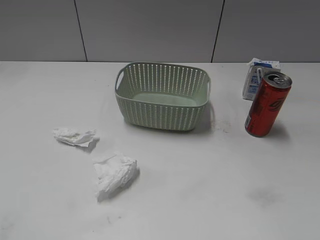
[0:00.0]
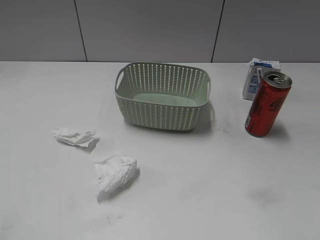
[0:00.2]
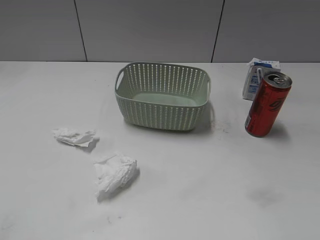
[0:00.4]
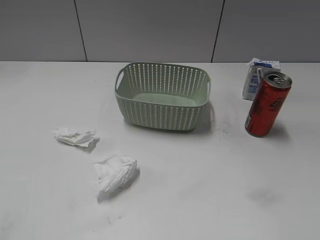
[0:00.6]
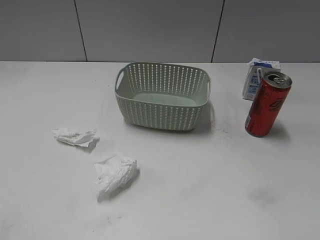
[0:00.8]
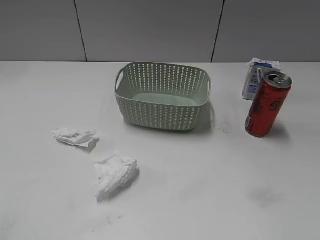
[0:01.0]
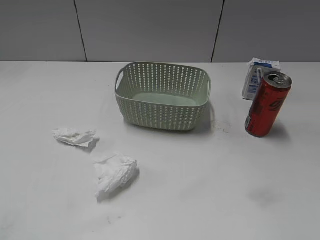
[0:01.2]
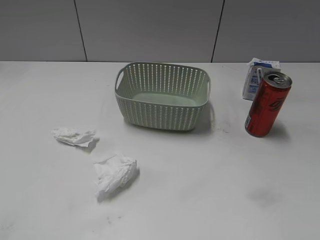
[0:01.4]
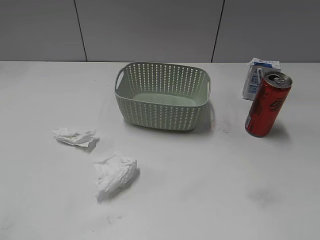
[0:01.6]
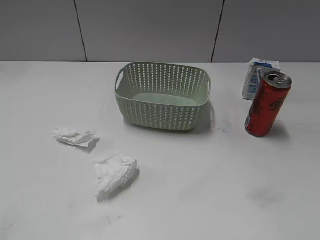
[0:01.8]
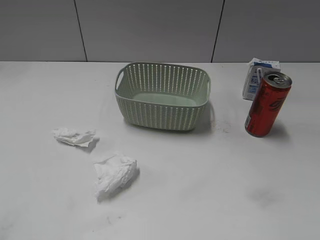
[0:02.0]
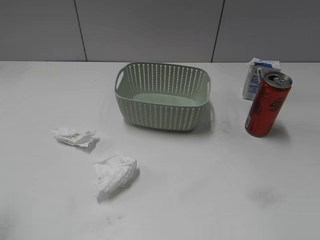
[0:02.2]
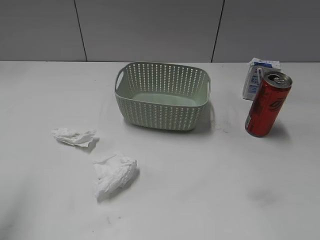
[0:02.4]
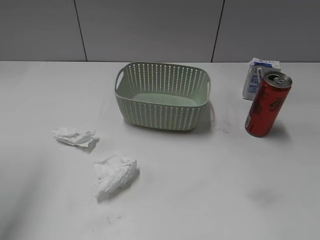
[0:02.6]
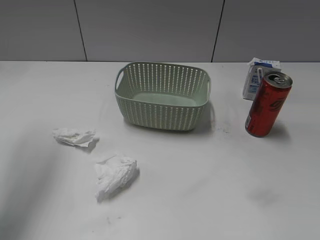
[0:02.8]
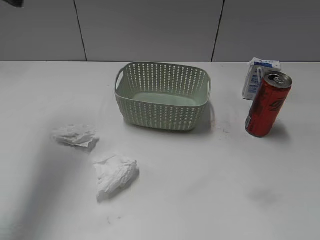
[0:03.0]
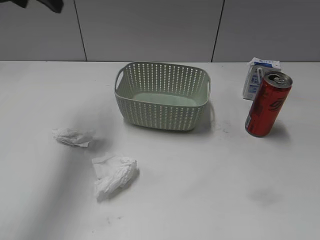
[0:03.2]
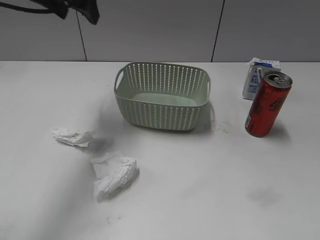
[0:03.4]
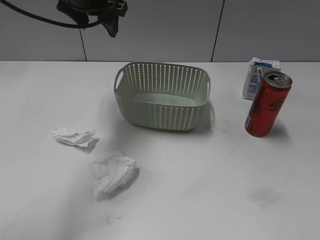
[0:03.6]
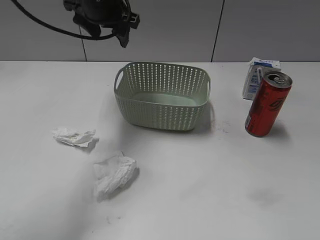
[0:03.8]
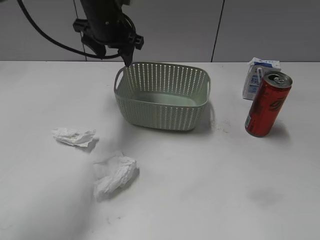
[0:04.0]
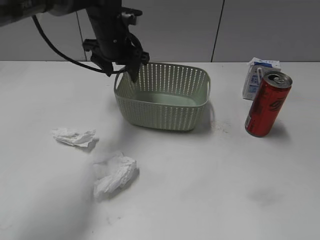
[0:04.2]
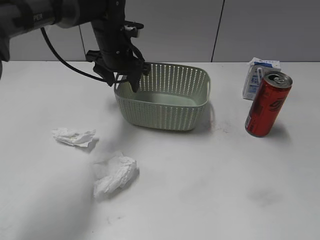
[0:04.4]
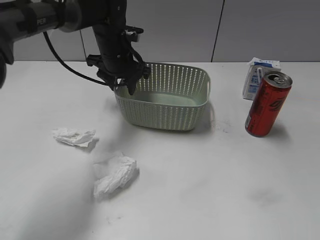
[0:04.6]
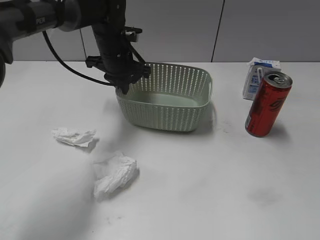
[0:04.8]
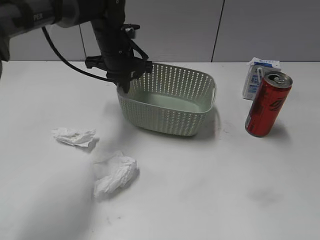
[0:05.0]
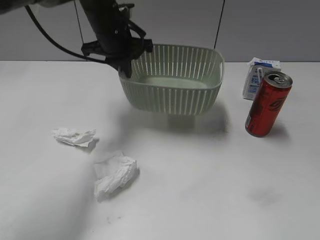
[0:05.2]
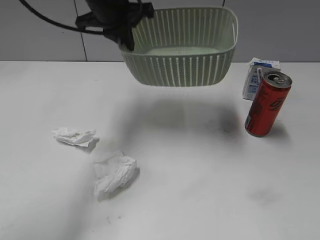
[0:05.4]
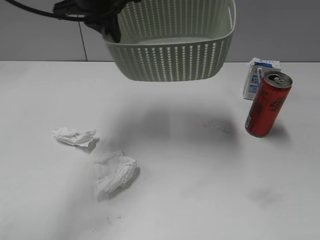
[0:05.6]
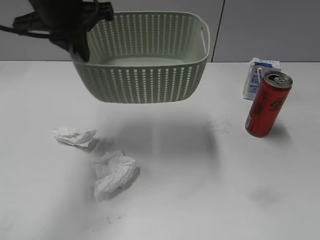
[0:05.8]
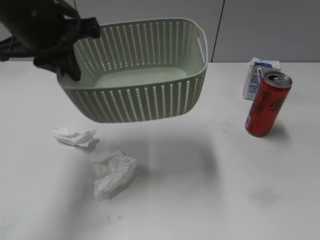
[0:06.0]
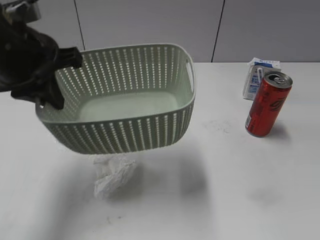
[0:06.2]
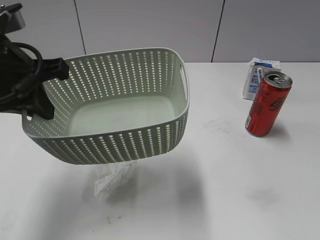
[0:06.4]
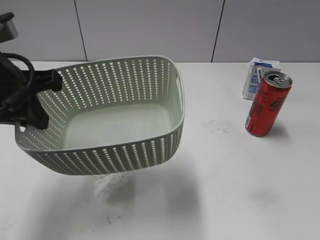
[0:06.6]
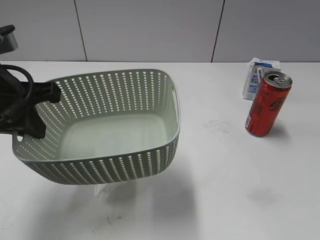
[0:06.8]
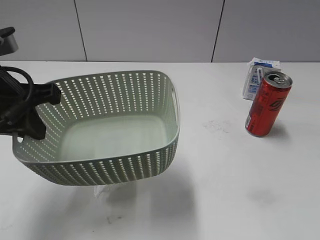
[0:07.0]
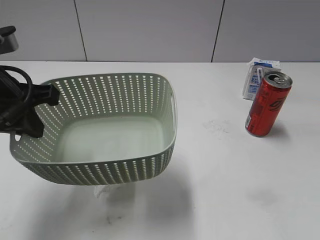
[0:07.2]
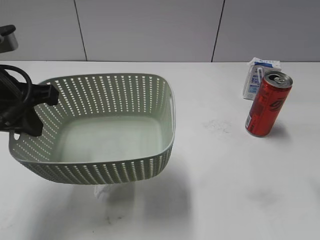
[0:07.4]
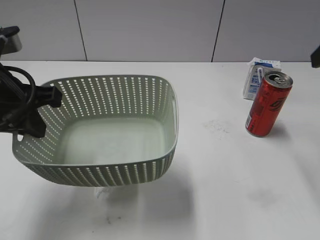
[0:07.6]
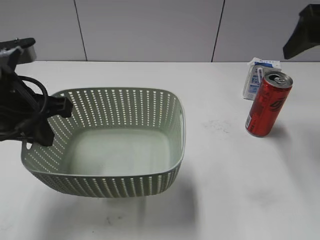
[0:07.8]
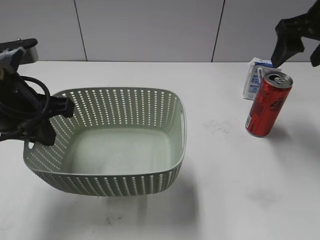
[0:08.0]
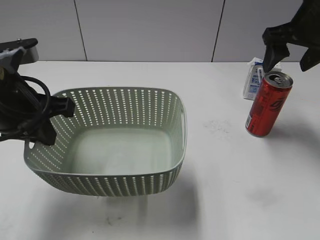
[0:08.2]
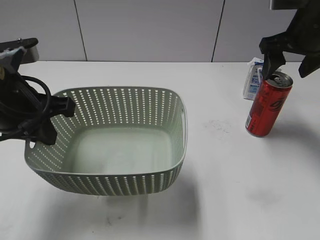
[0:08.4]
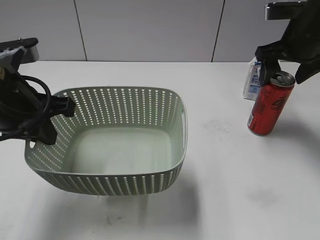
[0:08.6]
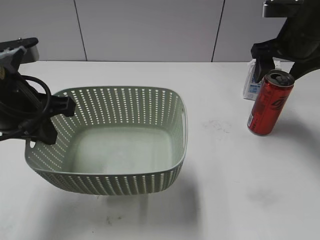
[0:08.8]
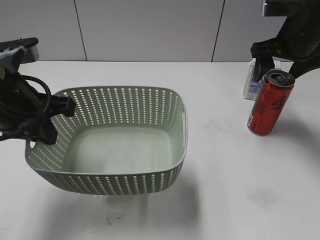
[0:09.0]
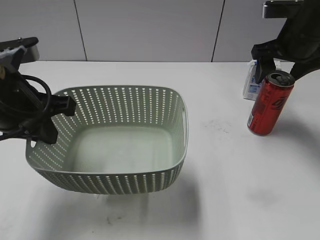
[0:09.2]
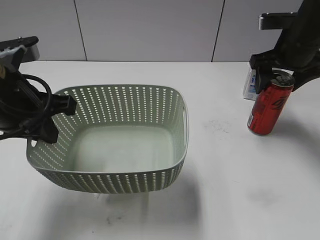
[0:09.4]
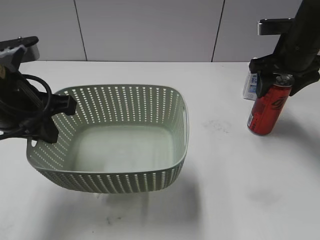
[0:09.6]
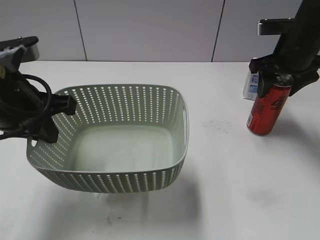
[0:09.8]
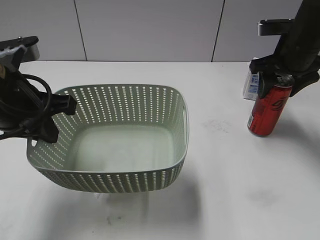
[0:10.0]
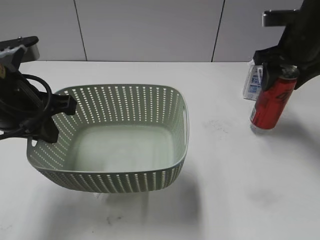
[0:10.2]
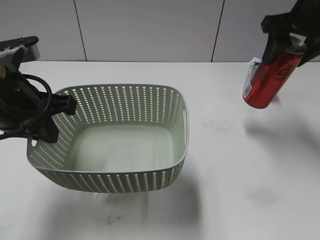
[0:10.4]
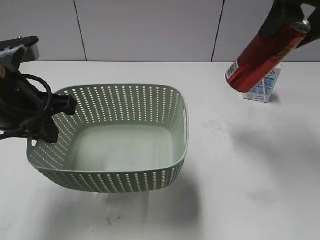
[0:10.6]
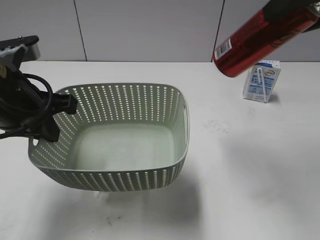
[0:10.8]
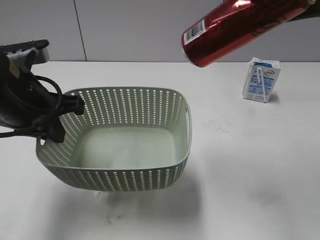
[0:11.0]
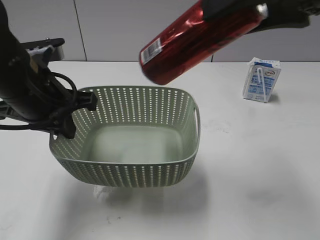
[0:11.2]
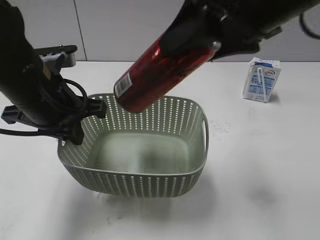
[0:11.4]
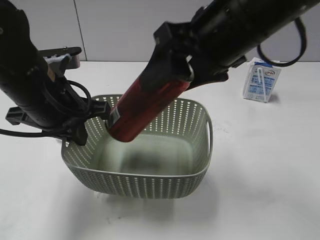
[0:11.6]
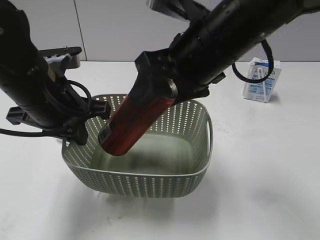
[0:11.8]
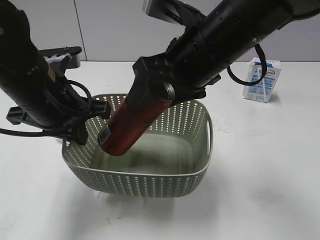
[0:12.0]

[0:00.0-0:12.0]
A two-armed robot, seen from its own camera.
Step, 0:03.0 to 0:04.8: Grasp the basket with left gripper.
Step, 0:05.0 to 0:07.4: Lift the basket with left gripper.
Step, 0:07.6 to 0:10.0: Grasp the cola can with right gripper.
0:01.6 to 0:03.0: The left gripper is displaced forward by some 30 cm.
0:03.0 to 0:04.4: The left gripper moves downward, to the right and forward, some 30 cm.
0:04.4 to 0:06.0: The left gripper shifts some 20 cm backward, upward and to the left, and closes its fingers.
0:06.0 to 0:07.6: The left gripper shifts some 10 cm backward; the right gripper shifts roughly 25 cm forward, and opens.
0:07.6 to 0:09.0: The right gripper goes approximately 15 cm forward and downward.
0:09.0 to 0:10.4: The right gripper changes place by some 5 cm, and closes up.
0:10.4 to 0:12.0: The right gripper goes approximately 20 cm to the left and backward. The left gripper ends up some 5 cm from where it was.

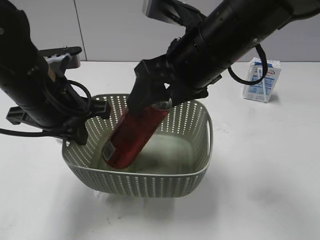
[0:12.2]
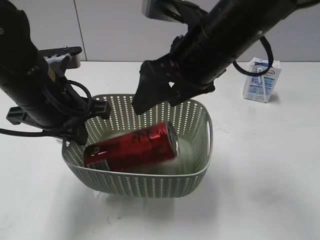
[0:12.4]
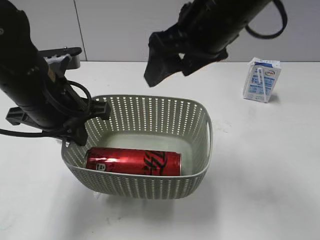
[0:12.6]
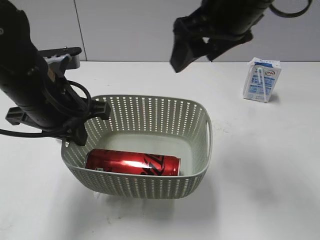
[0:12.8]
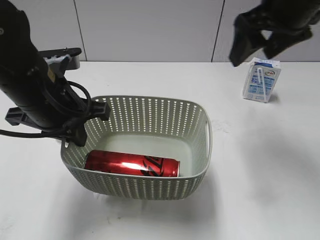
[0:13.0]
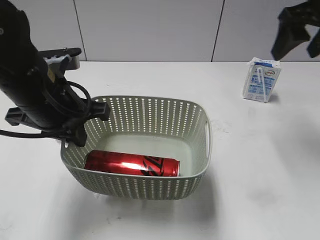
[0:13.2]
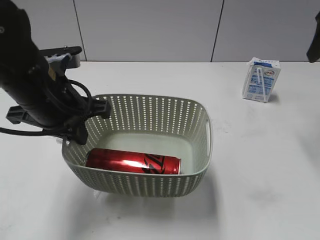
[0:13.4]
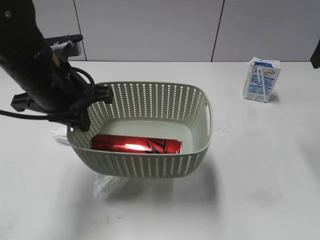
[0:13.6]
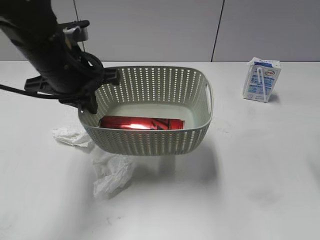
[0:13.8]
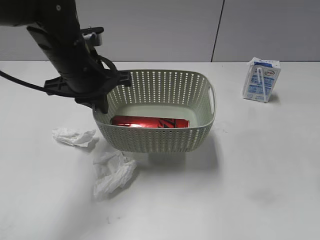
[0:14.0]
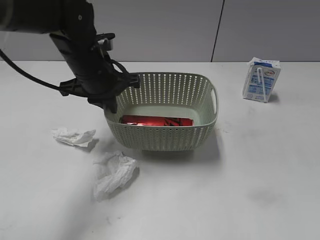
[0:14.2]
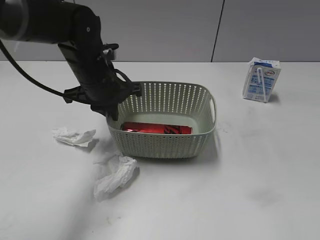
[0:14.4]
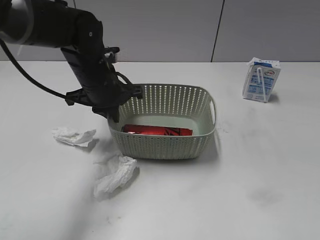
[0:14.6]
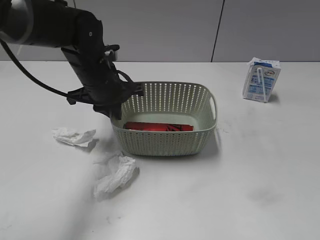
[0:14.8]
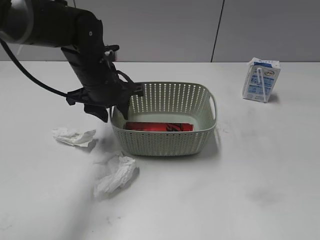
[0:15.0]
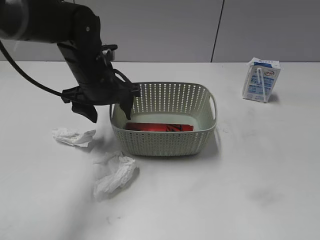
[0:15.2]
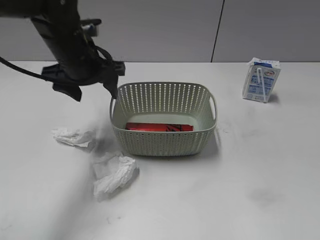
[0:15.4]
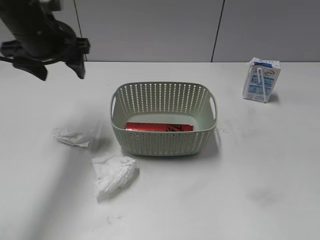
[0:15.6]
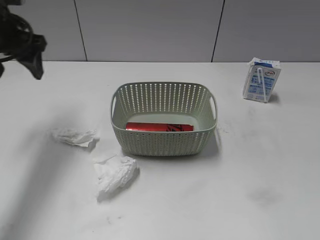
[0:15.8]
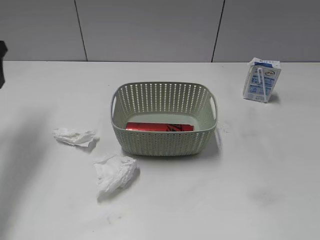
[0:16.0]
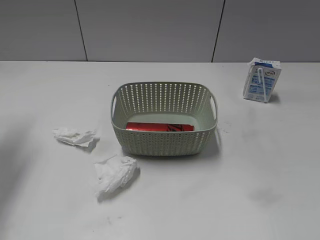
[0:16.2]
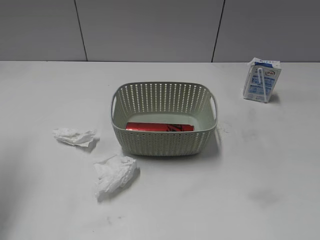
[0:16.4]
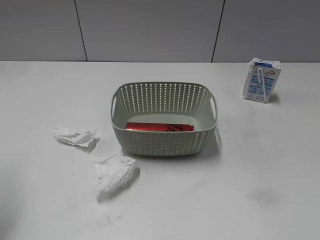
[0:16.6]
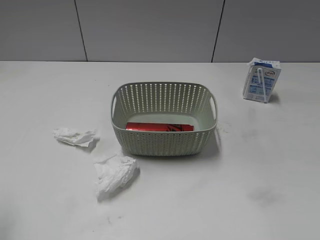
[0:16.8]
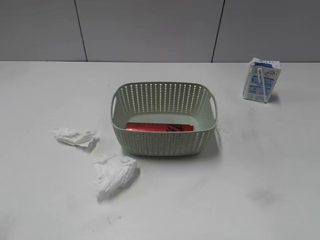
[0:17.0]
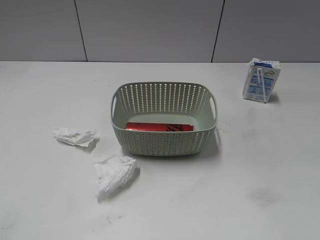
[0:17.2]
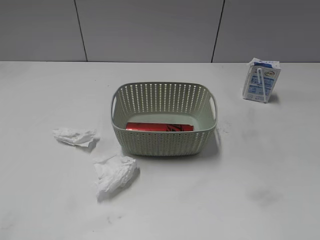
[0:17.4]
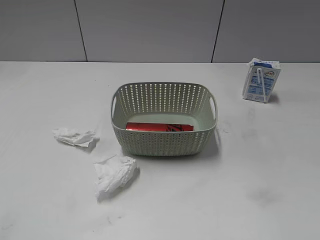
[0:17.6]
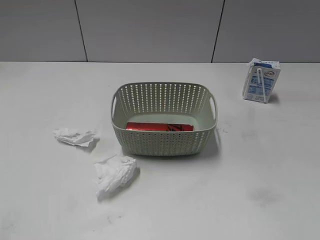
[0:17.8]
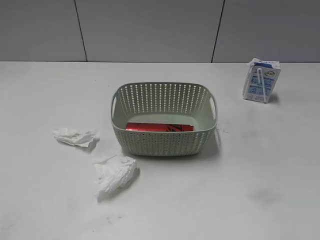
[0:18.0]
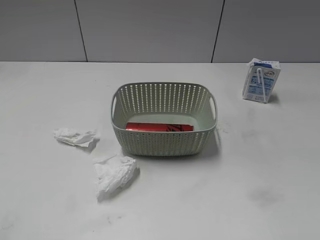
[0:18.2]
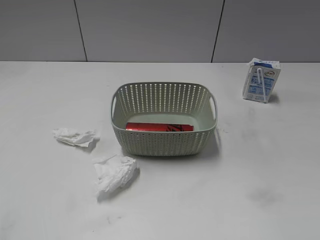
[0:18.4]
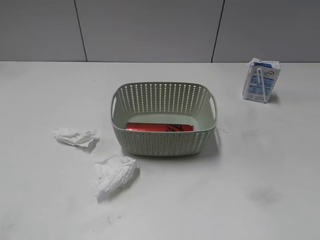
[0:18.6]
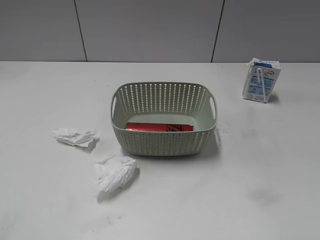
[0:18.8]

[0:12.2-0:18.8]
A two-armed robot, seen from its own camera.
Step, 0:12.6 to 0:15.0: Place the basket on the table with left gripper.
0:12.2 to 0:13.8: The right gripper moves to the right, roughly 25 cm. Meanwhile the left gripper heads forward, covering roughly 5 cm.
0:13.8 to 0:15.4: The left gripper shifts some 5 cm forward, and opens its fingers; the right gripper heads backward, covering roughly 25 cm.
0:15.4 to 0:17.2: The left gripper moves backward and to the left, roughly 35 cm.

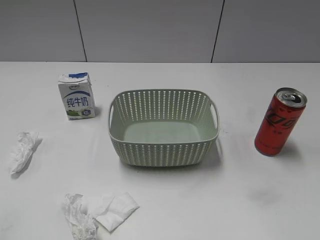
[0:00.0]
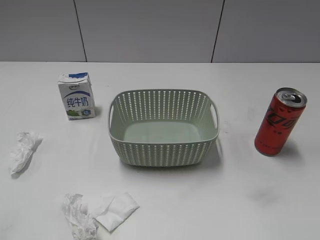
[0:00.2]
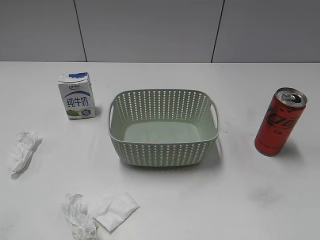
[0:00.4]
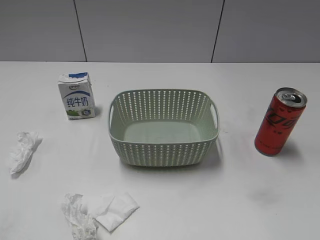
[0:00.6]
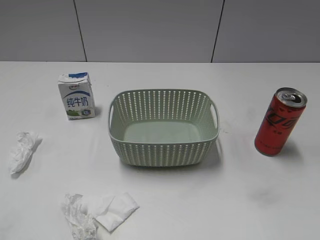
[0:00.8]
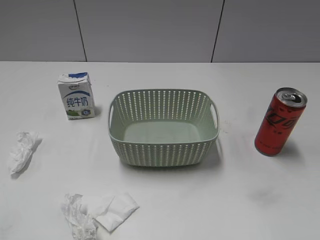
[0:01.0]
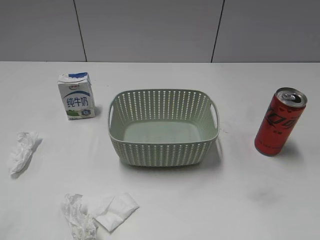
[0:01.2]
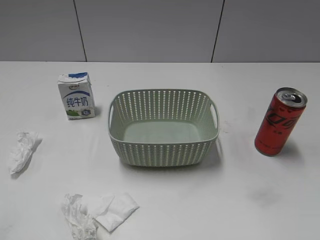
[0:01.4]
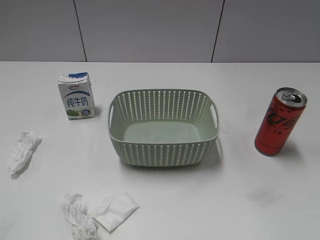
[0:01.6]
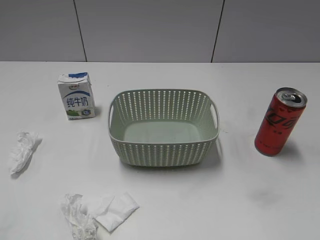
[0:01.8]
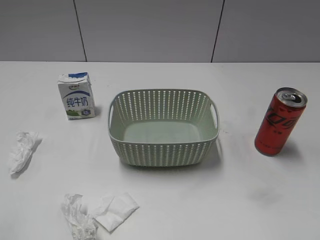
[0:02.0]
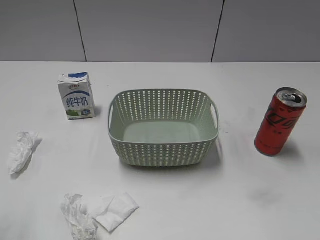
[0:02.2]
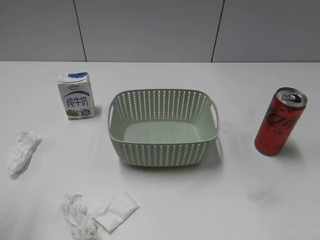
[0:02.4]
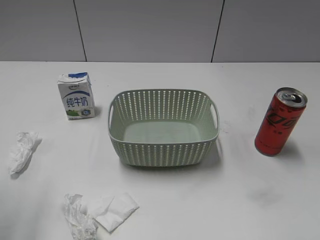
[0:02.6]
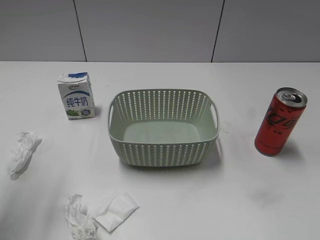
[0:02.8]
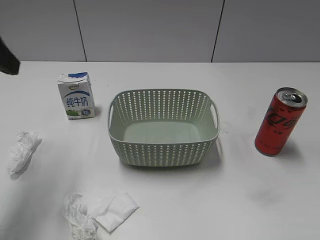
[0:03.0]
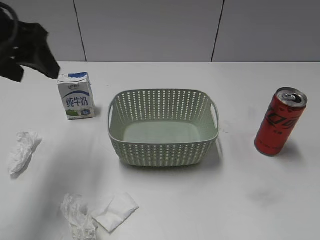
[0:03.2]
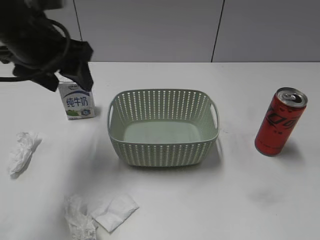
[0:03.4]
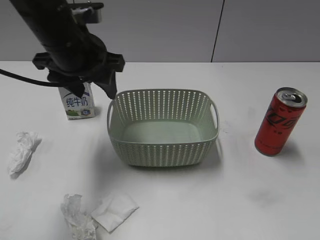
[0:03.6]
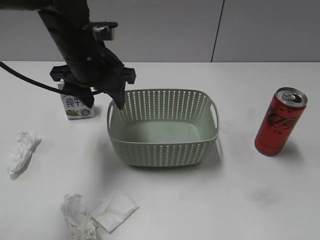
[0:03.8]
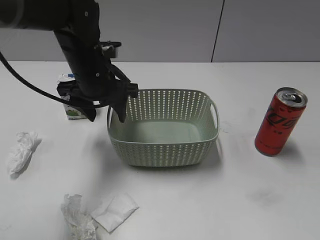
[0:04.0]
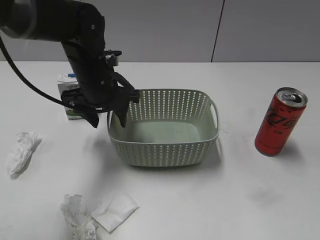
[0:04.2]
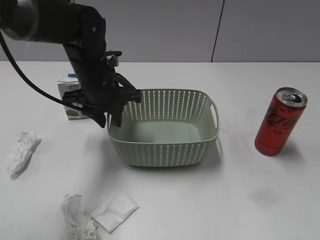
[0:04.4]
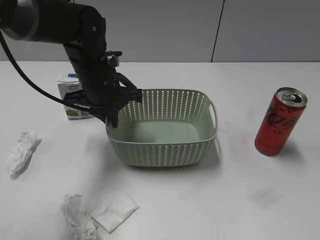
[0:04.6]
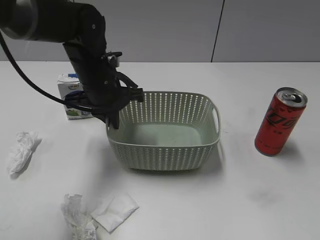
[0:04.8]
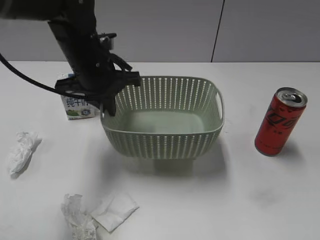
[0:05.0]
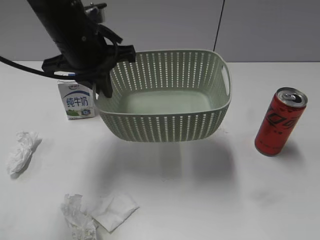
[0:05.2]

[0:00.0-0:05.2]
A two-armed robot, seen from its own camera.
Step, 0:03.0 to 0:04.6: Grasp the basket with left gripper.
0:01.8 to 0:03.4: The right gripper opens its fingers. Meanwhile the left gripper travels forward and to the right by about 30 cm.
0:03.4 to 0:05.2: The left gripper goes some 5 cm to the right, goes downward and returns, roughly 10 cm each way, and closes its fingers.
